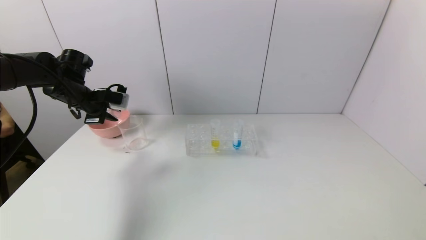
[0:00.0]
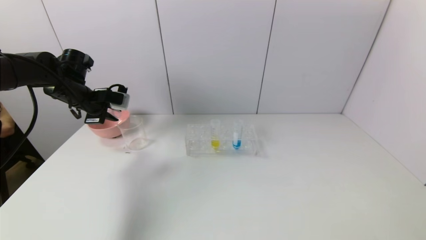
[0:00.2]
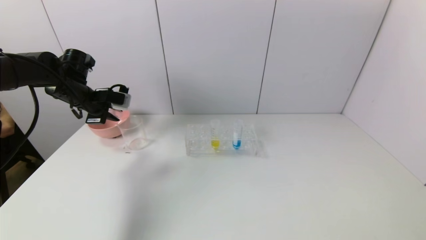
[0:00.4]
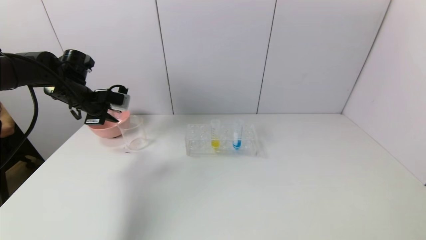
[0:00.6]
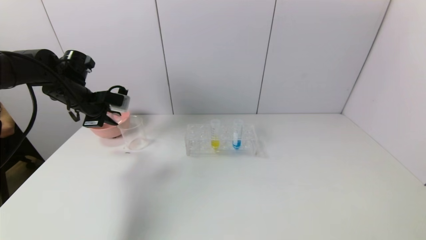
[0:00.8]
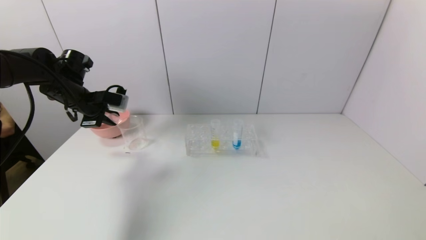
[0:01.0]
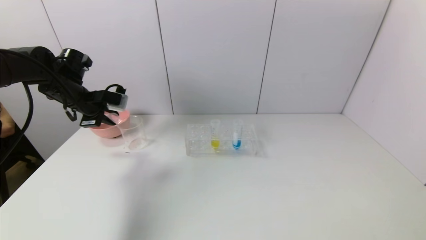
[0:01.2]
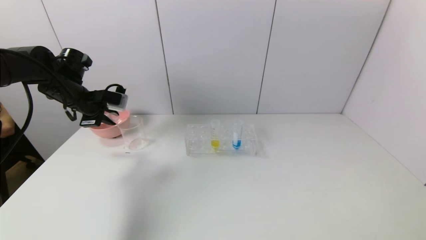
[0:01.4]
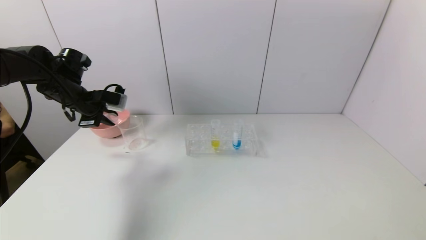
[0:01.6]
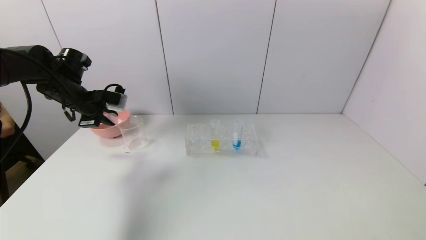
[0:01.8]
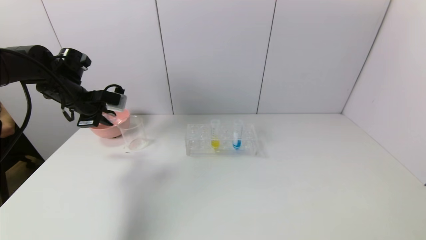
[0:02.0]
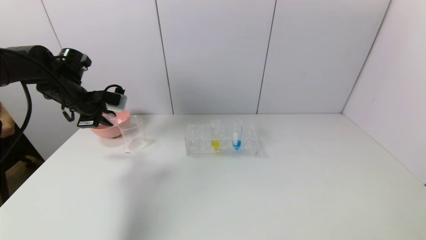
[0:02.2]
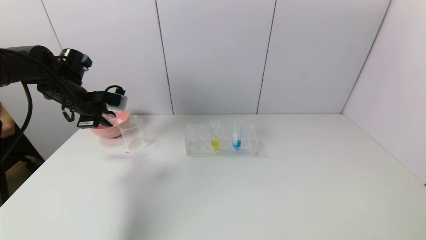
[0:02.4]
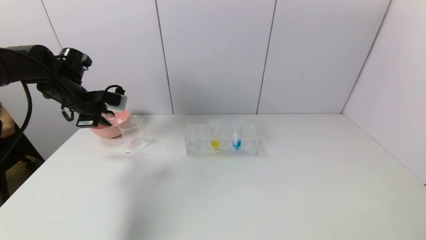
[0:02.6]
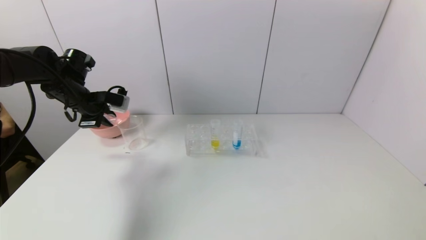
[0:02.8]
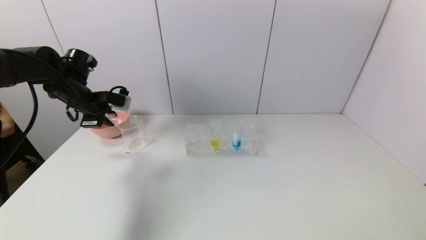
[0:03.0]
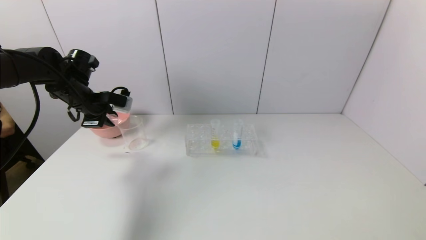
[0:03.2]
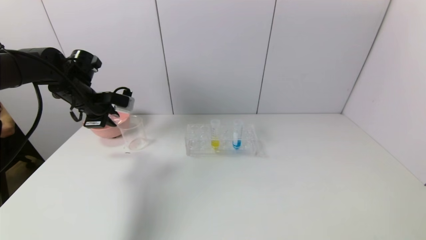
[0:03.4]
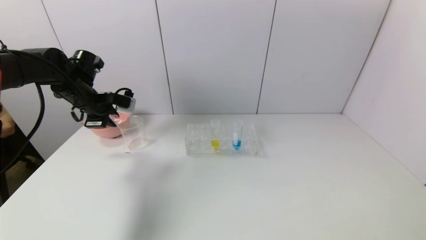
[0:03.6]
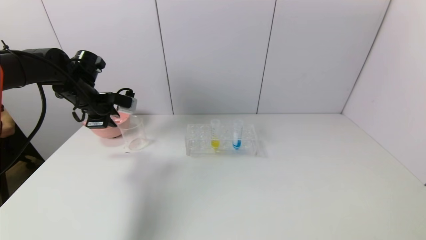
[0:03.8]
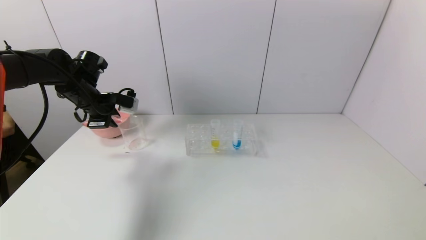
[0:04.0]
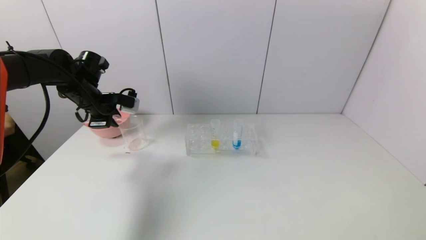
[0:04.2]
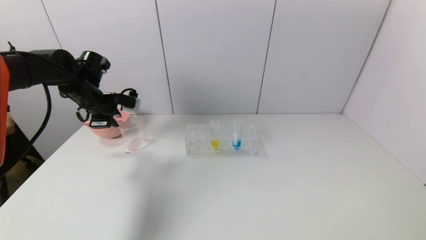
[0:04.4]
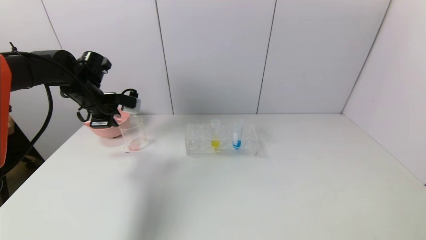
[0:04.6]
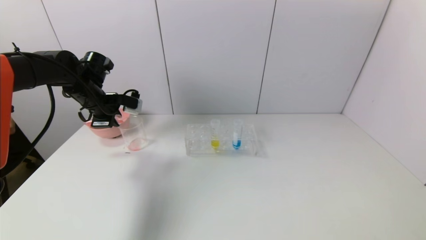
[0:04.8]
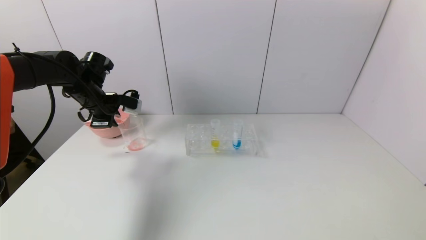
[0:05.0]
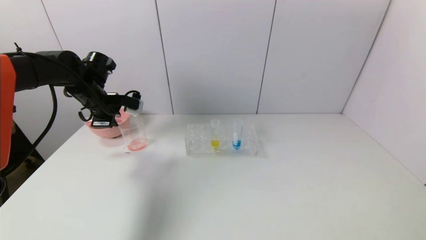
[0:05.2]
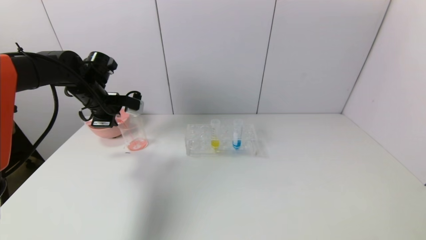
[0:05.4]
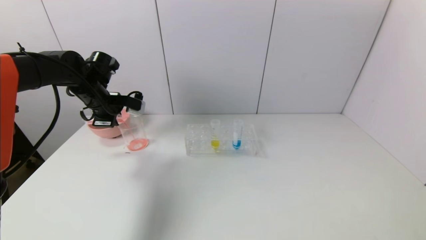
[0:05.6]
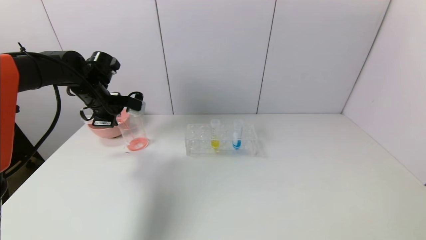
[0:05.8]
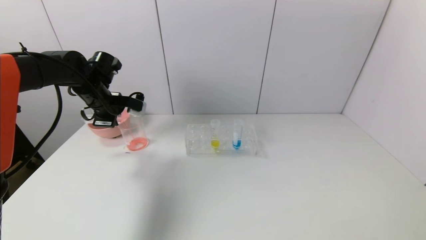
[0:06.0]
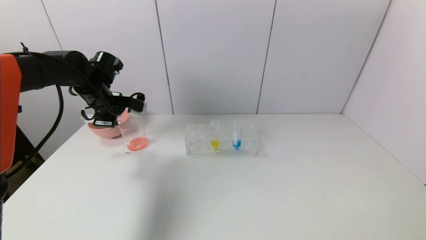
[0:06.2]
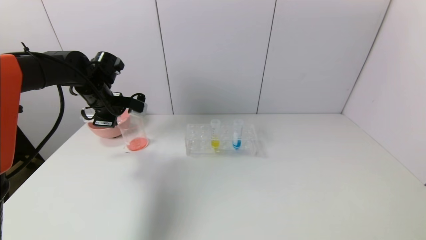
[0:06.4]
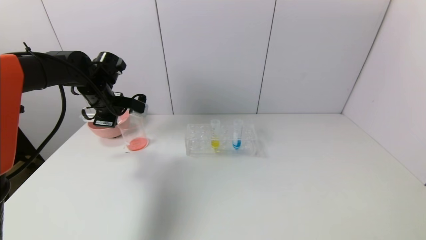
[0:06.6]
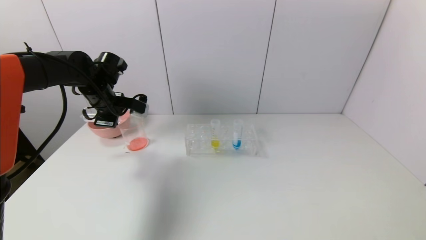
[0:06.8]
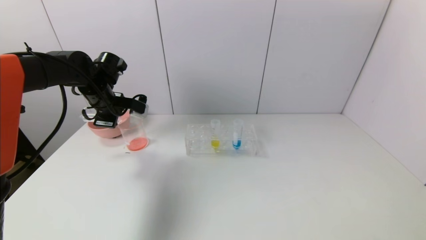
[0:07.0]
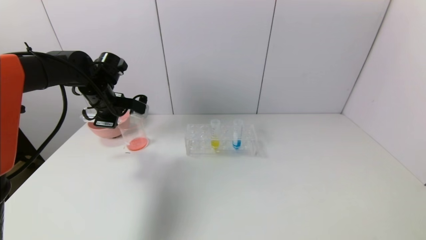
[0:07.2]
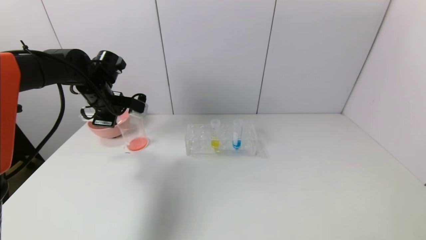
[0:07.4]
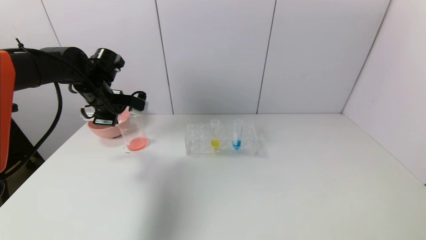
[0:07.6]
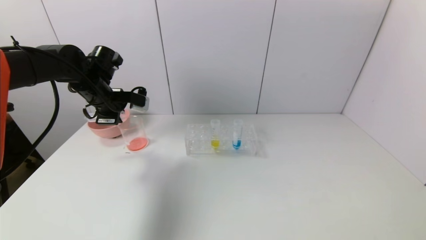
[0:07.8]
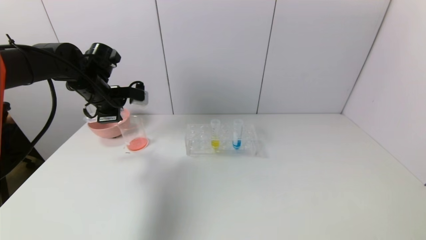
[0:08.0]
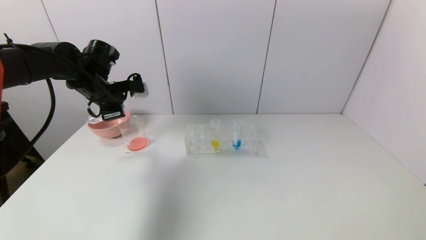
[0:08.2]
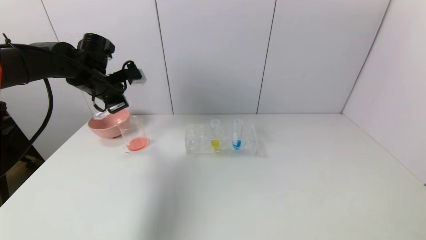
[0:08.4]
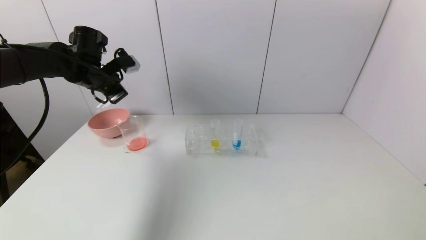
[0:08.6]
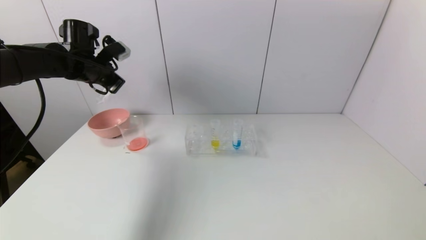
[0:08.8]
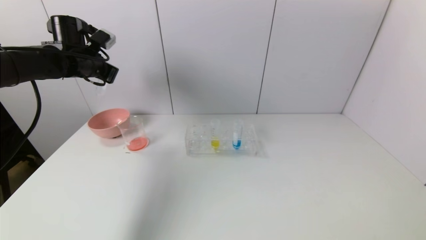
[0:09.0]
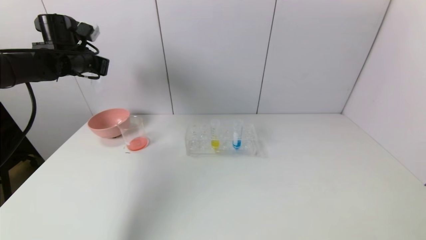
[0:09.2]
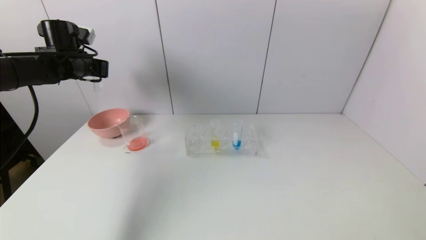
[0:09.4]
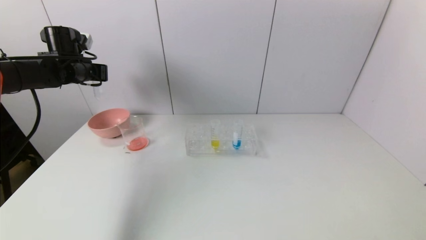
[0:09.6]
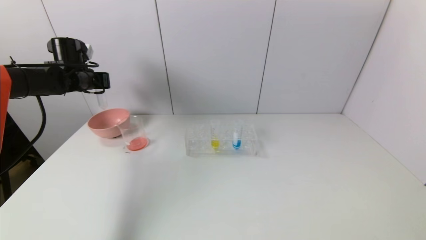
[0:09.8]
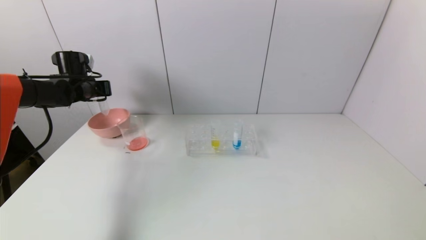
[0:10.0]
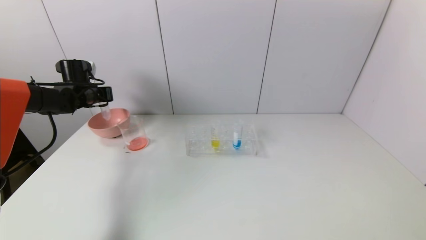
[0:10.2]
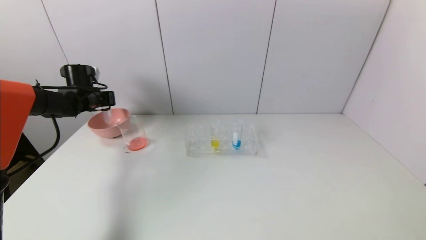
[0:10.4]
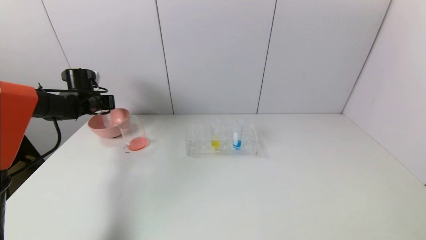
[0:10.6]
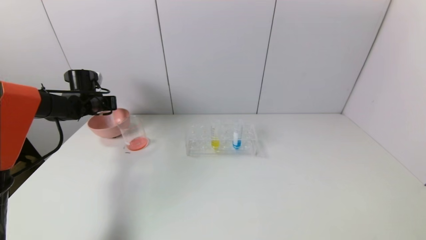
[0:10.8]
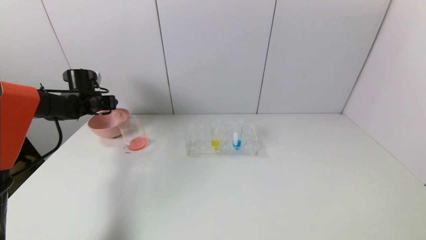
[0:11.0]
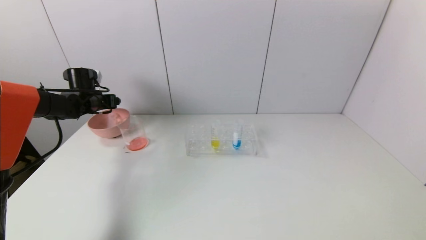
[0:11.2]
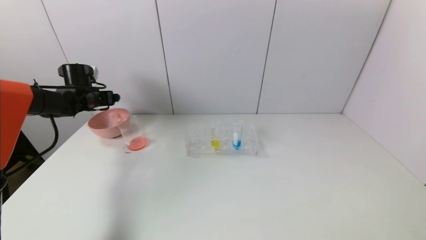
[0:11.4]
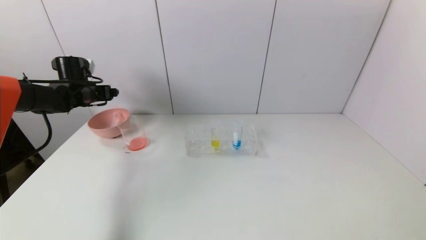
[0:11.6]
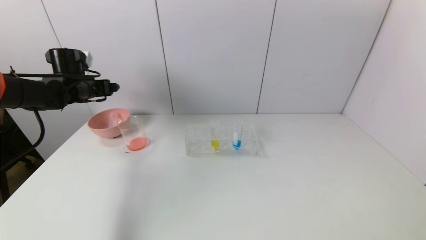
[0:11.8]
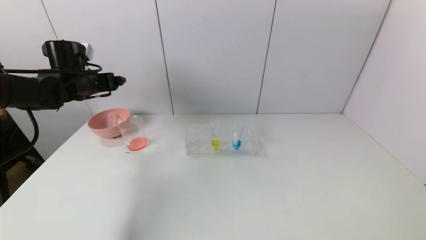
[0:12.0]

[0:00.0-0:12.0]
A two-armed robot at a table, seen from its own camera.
Task of the whole recording: pick up the test tube with yellow pigment and the test tube with red pigment by grippers and pour them into the beaker.
Step, 0:00.0 to 0:06.8: Pour the red reagent into the graduated cylinder with the left gripper.
Step, 0:07.0 to 0:11.0: Place the test tube into the pink bowl with the left gripper.
0:00.0 to 0:04.4: The grippers stay close to where they were, moving slightly.
0:04.4 to 0:07.6: The grippers stay close to where they were, moving slightly.
0:07.6 to 0:09.0: The left gripper goes some 5 cm upward.
0:09.0 to 0:10.4: The left gripper goes roughly 10 cm downward.
0:10.4 to 0:12.0: The left gripper travels upward, backward and to the right by approximately 10 cm, and opens.

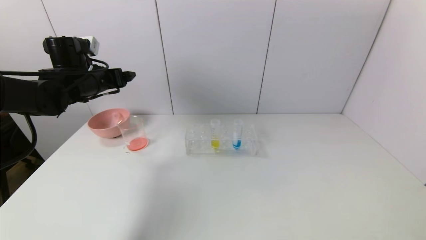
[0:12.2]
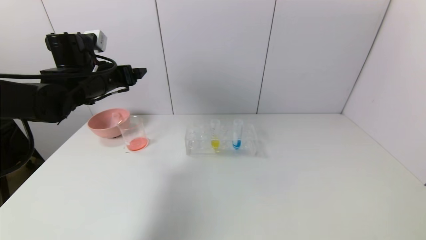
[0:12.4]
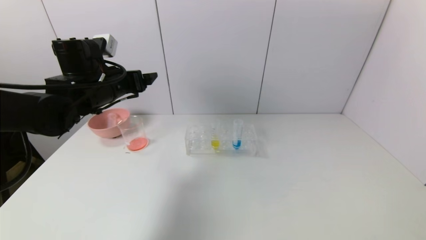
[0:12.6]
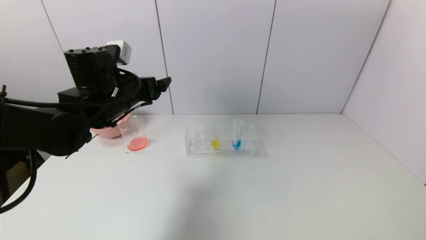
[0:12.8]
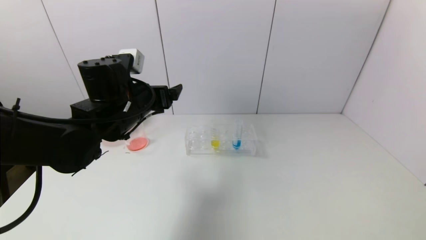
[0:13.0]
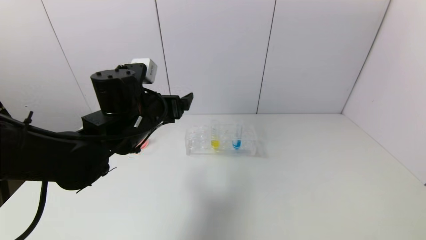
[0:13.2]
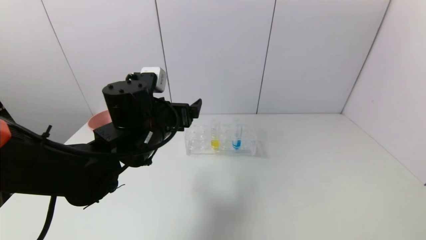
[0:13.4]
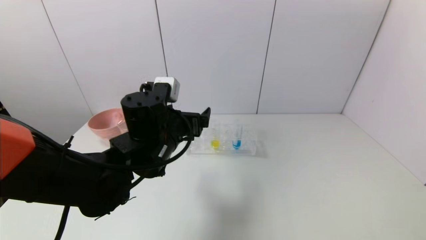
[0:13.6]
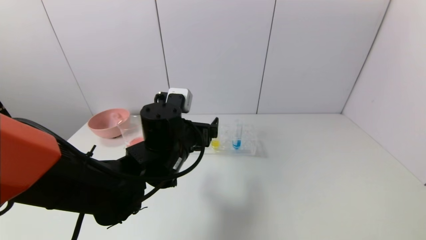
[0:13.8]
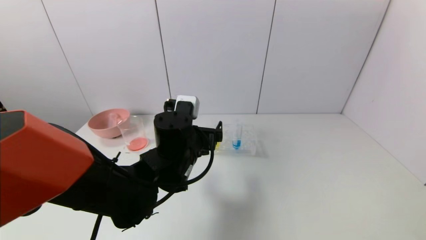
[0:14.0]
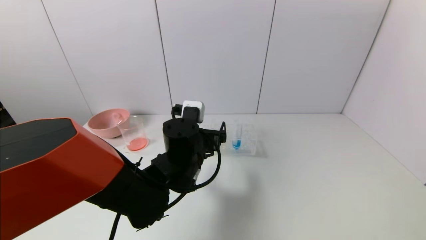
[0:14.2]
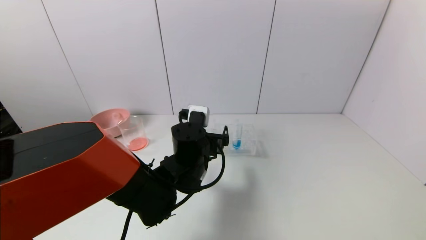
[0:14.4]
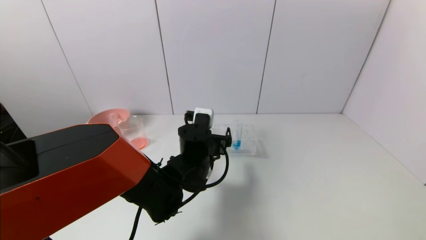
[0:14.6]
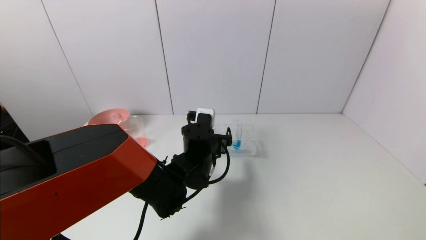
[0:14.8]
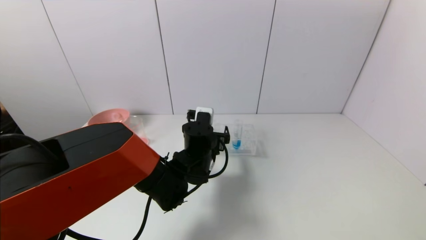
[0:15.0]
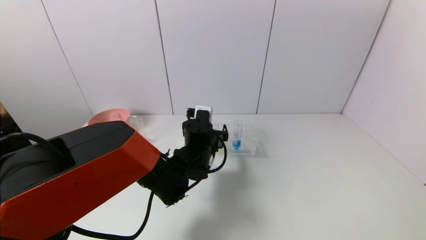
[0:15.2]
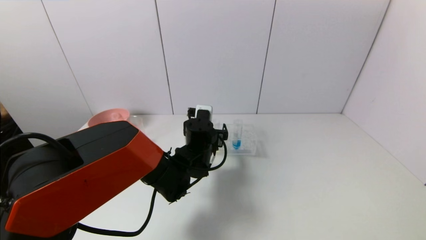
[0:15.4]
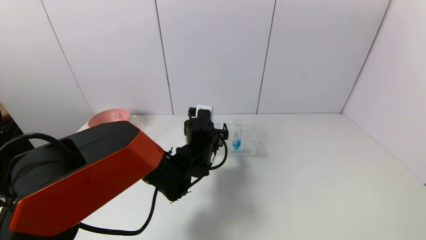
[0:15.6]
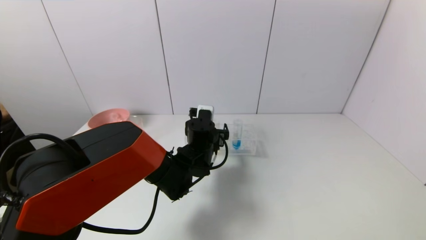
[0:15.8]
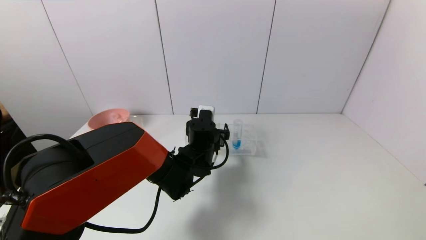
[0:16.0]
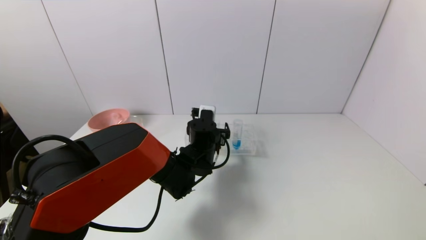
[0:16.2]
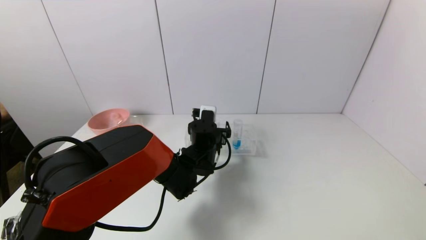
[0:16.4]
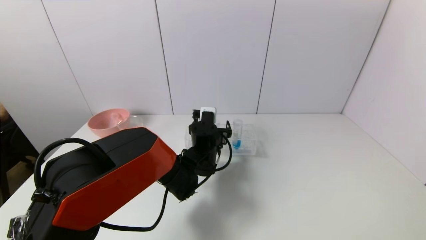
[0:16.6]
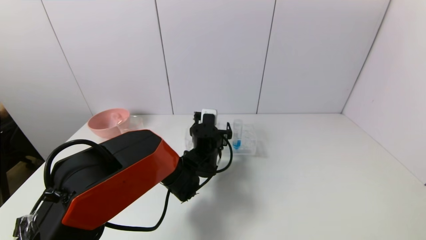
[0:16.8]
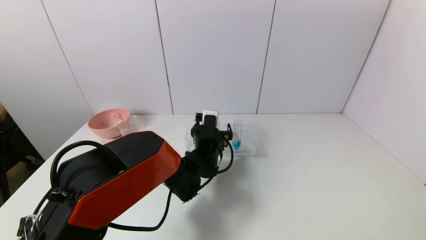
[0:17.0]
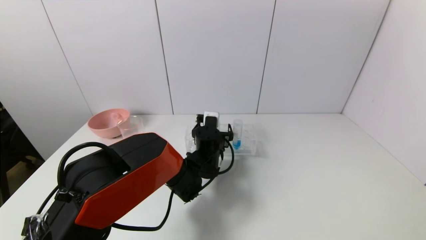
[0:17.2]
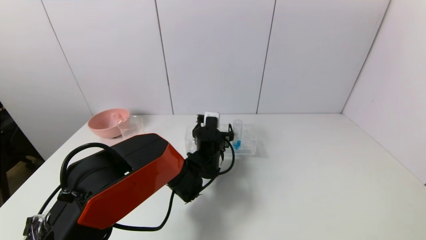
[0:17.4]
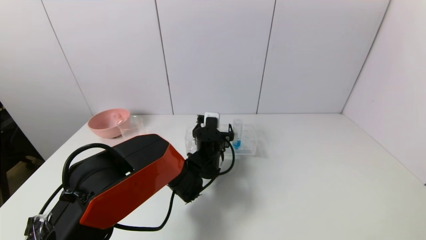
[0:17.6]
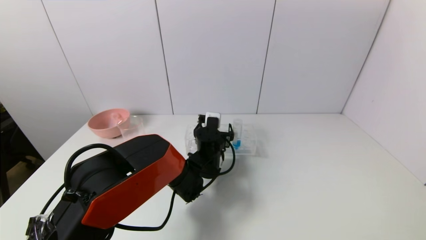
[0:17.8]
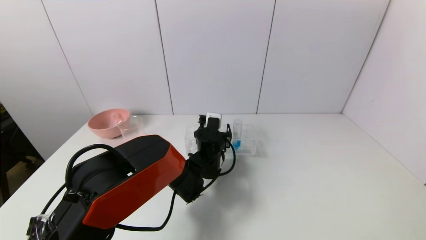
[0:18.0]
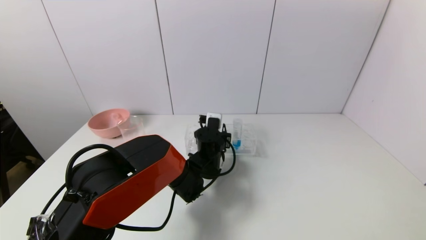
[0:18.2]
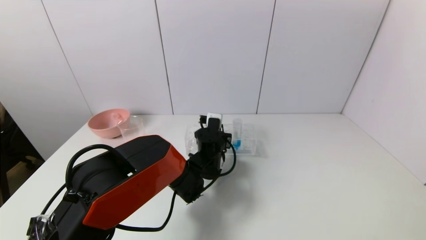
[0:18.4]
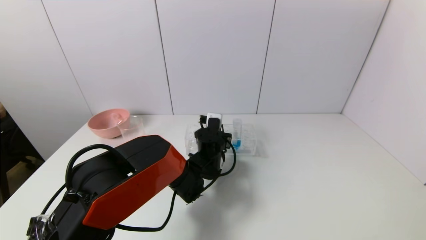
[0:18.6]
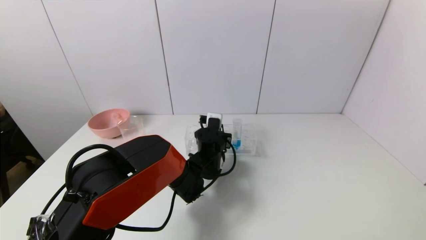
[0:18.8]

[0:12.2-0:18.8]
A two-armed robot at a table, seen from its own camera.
Task of the whole recording: pick up the test tube with yellow pigment and the test tube with red pigment by grippers and pour them into the beaker.
Step, 0:12.2 to 0:18.4: Grasp the yellow reagent with the left gripper.
0:12.2 to 0:13.8: The left gripper travels to the right, backward and downward by some 25 cm.
0:13.8 to 0:15.4: The left gripper travels forward and downward by approximately 10 cm.
0:15.4 to 0:17.2: The left gripper shifts by approximately 5 cm.
0:17.2 to 0:18.8: The left gripper closes.
